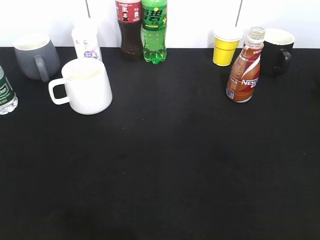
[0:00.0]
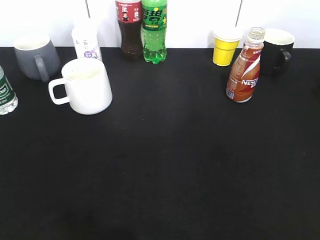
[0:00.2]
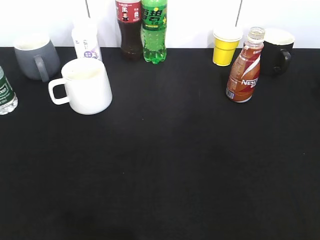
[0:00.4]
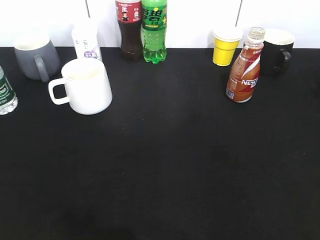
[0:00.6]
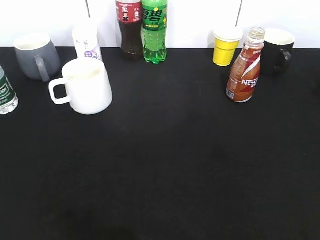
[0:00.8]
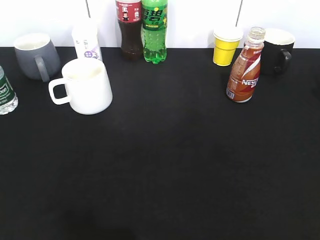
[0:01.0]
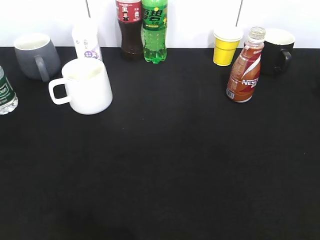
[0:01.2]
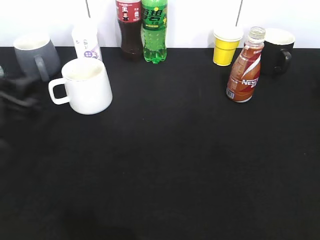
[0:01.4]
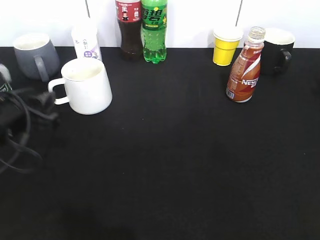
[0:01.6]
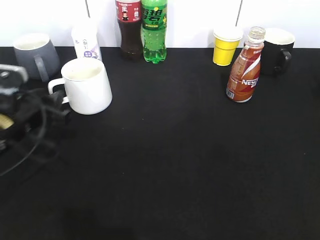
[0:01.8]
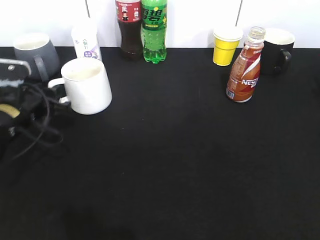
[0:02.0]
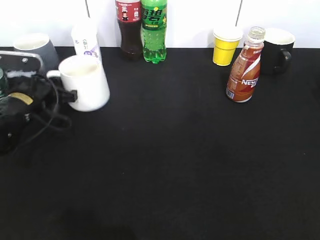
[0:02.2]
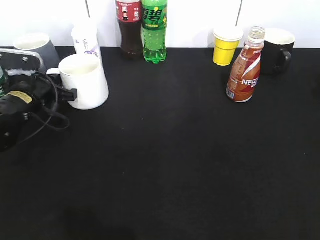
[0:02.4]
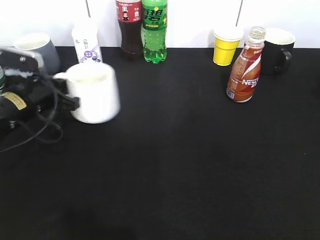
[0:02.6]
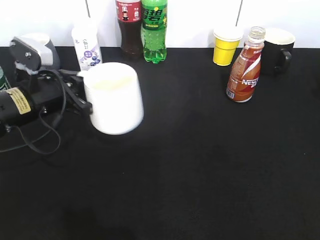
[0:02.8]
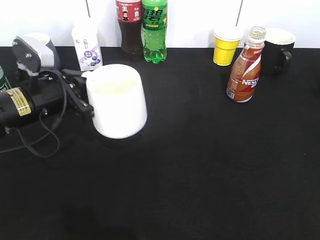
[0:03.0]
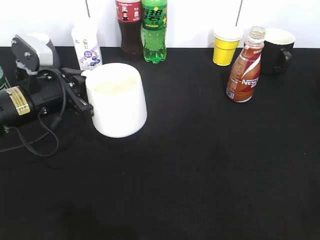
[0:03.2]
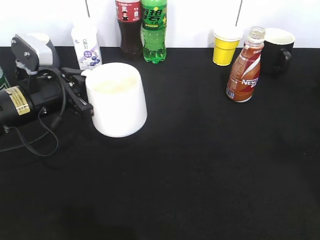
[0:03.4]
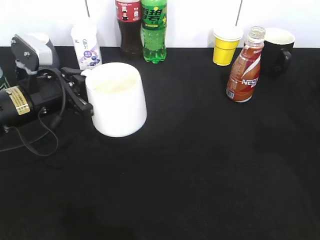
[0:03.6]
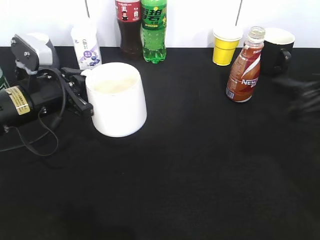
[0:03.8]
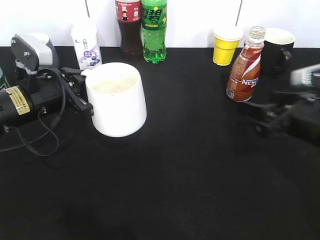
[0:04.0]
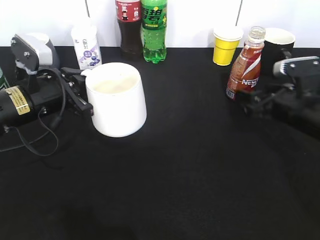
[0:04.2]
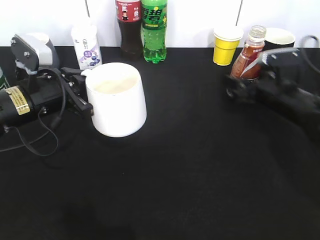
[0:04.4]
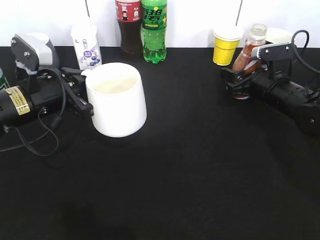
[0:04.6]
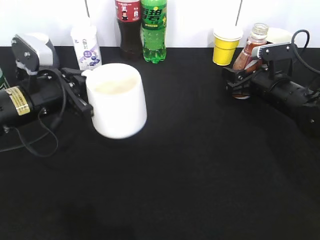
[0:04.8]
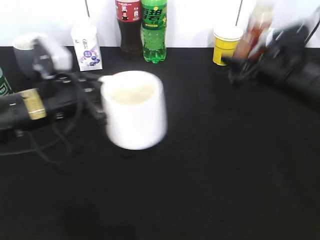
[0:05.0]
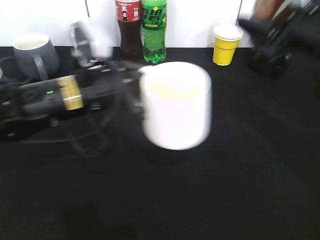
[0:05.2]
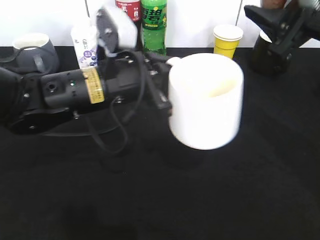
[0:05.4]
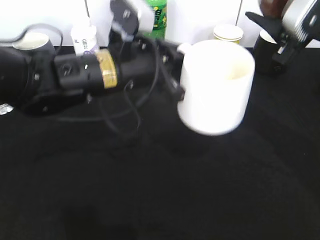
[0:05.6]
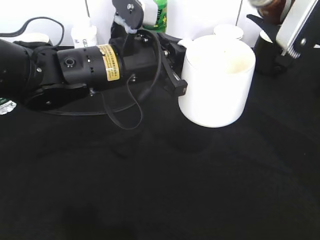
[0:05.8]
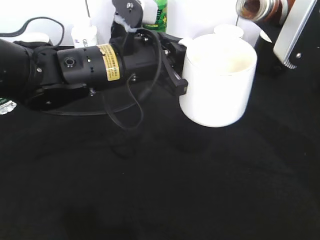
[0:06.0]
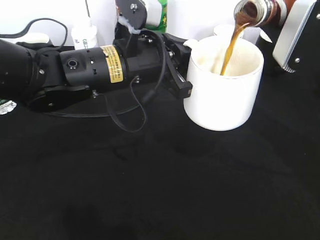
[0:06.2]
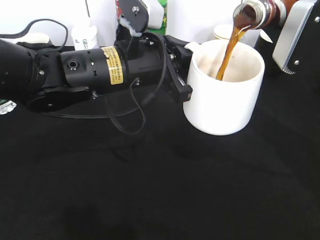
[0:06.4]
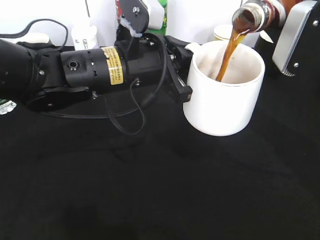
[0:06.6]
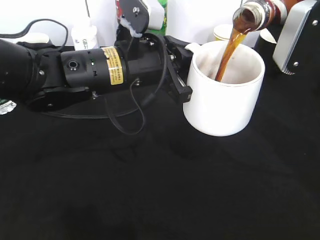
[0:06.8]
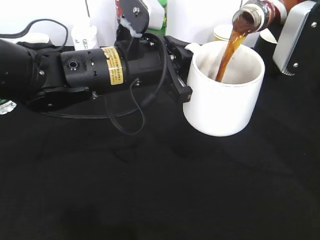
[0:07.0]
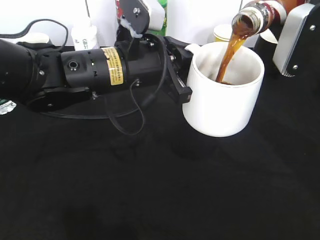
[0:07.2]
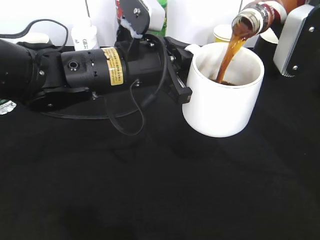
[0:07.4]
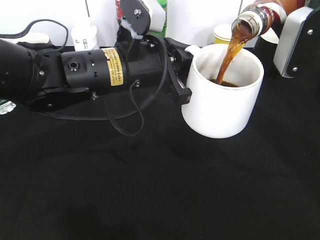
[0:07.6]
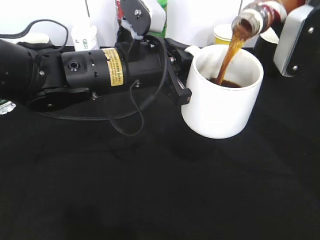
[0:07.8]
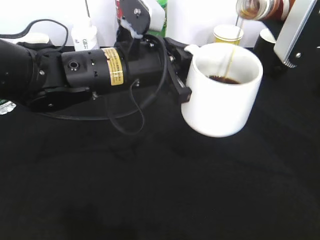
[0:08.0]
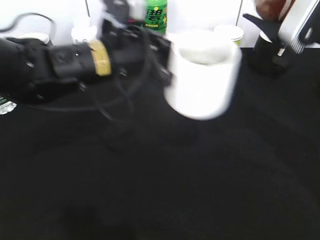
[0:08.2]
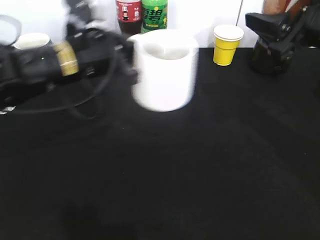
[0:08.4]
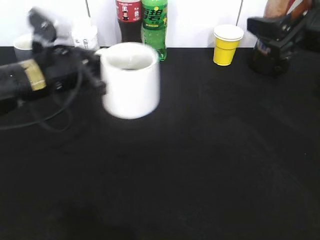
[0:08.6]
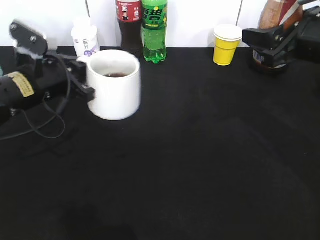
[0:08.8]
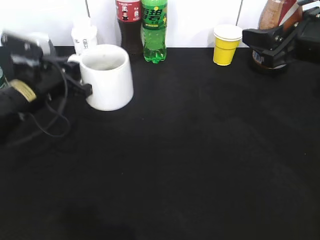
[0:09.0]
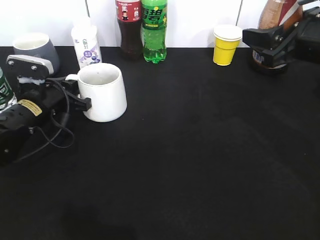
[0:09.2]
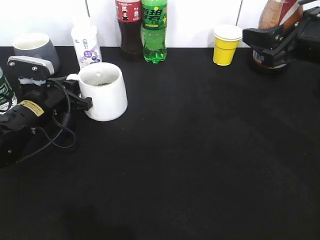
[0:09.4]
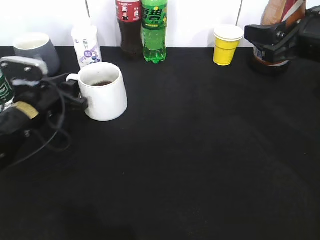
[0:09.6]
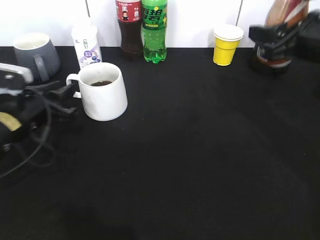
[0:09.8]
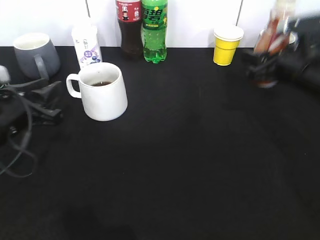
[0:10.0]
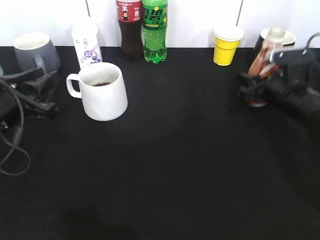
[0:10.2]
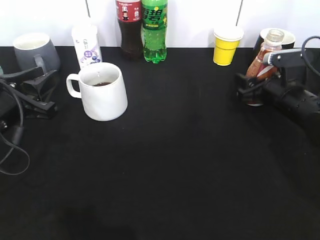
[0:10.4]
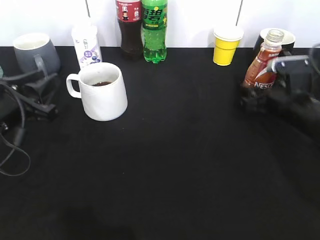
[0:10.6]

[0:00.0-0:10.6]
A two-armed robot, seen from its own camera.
Step, 0:00.8 to 0:02.2: Grasp the white cup with left gripper.
Step, 0:02.4 to 0:03.0: Lift the white cup with left gripper.
Step, 0:03.2 to 0:04.6: Grasp the bottle with coffee with right gripper.
Step, 0:04.8 to 0:08.2: Pour the coffee from bottle to cup with right gripper.
Step, 0:08.4 to 0:09.6: Place the white cup on the table with left gripper.
0:00.0 to 0:01.6: The left gripper goes some 25 cm forward and downward, and opens up.
0:01.6 to 0:03.0: The left gripper shifts some 5 cm forward, and closes its fingers.
0:03.0 to 0:04.6: The right gripper heads forward and downward, covering some 40 cm, and closes.
0:04.6 to 0:06.0: The right gripper travels upward and backward by about 20 cm. The left gripper goes approximately 15 cm to the right and upward.
0:06.0 to 0:07.6: There are only small adjustments of the grippers.
0:07.6 to 0:09.0: The left gripper travels to the left and downward by approximately 20 cm.
0:09.0 to 0:10.6: The left gripper is displaced backward by about 10 cm, and opens; the right gripper travels downward by about 15 cm, and opens up.

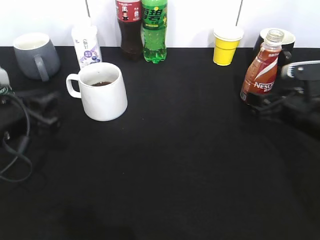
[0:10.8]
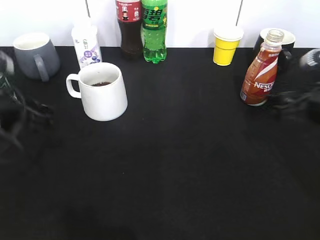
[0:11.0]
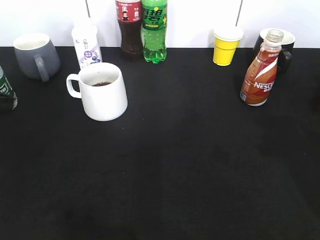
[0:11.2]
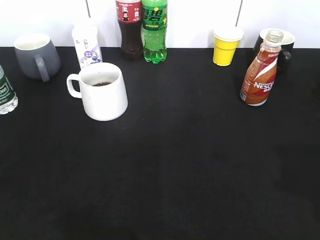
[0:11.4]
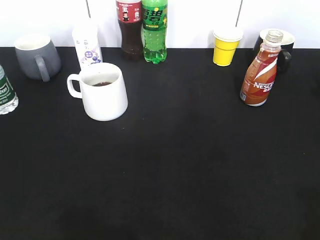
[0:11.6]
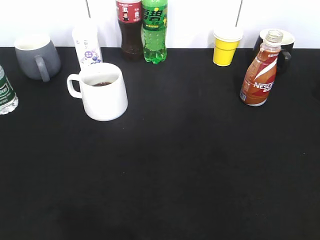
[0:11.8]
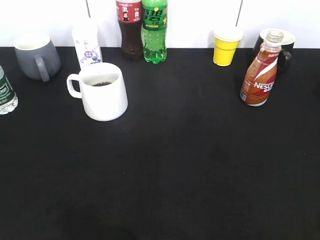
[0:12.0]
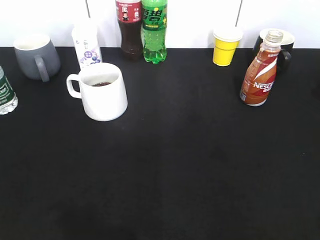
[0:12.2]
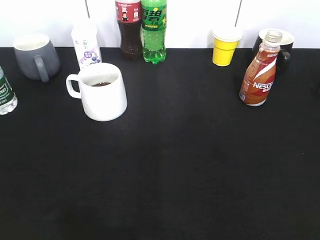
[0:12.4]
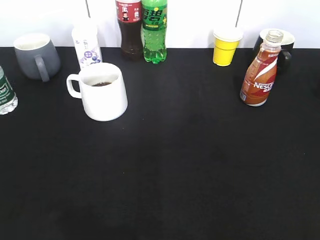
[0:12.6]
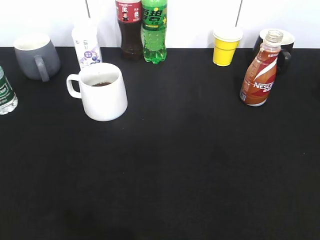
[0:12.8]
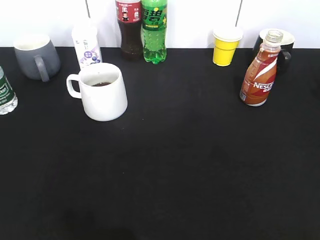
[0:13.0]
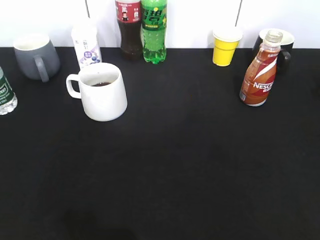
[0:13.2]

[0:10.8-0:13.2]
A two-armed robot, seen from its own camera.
0:10.8 to 0:12.0: Both grippers travel together backward and upward, some 30 cm. The right gripper closes.
